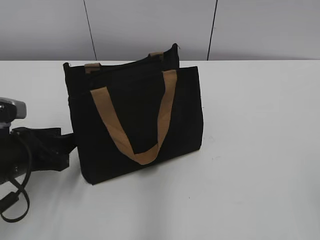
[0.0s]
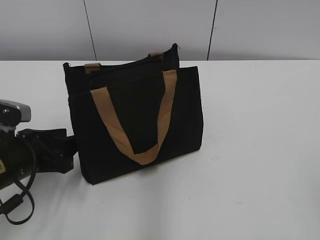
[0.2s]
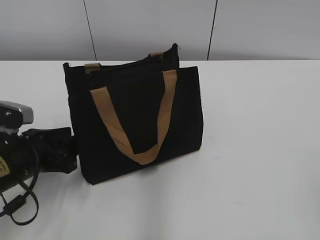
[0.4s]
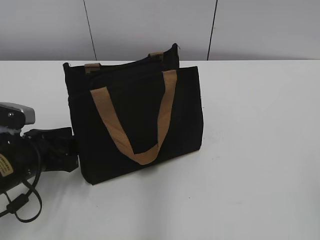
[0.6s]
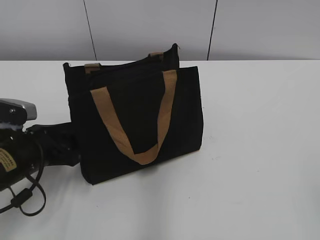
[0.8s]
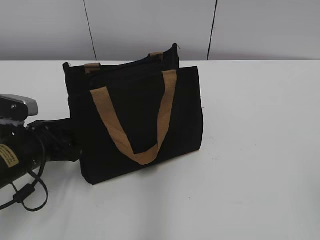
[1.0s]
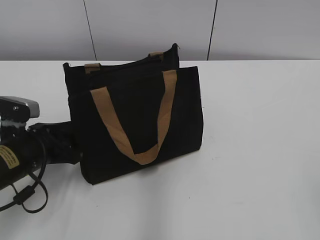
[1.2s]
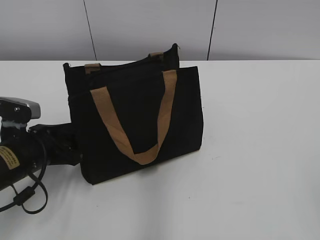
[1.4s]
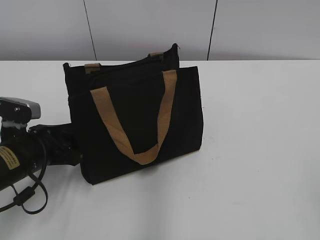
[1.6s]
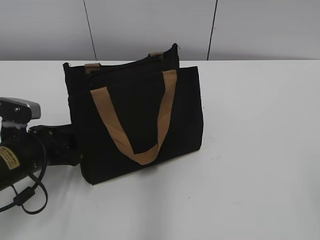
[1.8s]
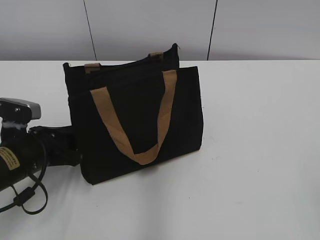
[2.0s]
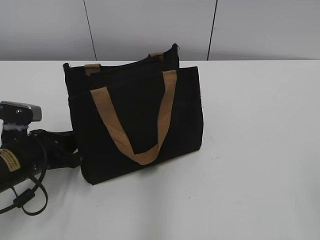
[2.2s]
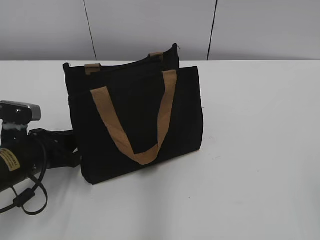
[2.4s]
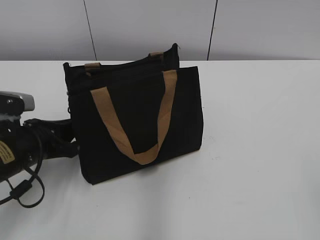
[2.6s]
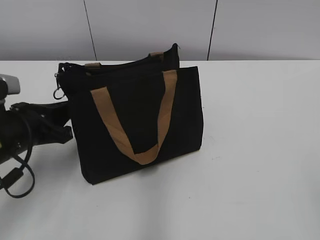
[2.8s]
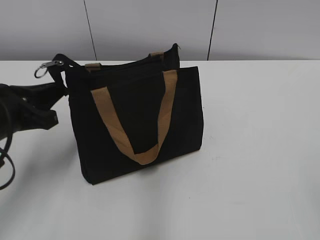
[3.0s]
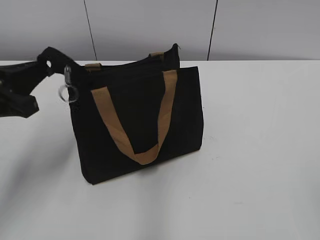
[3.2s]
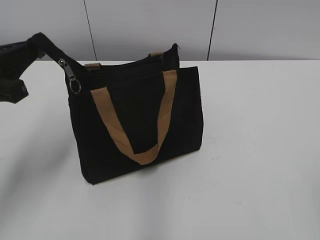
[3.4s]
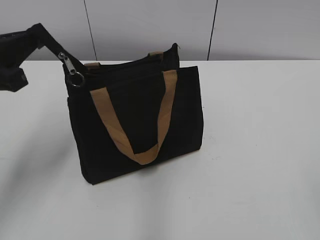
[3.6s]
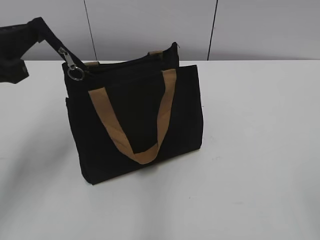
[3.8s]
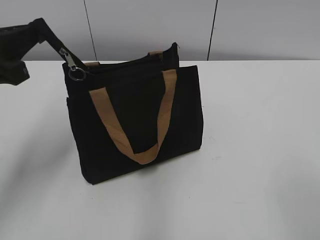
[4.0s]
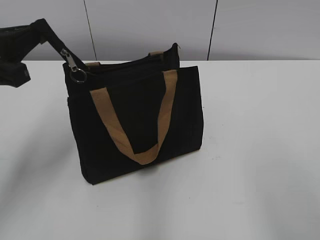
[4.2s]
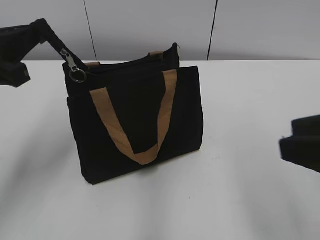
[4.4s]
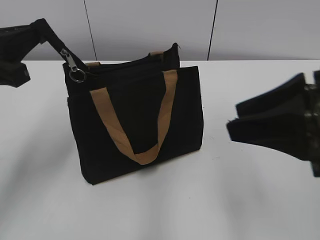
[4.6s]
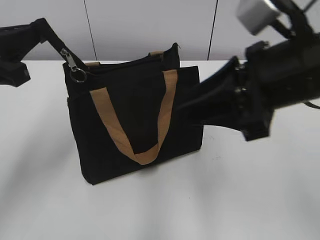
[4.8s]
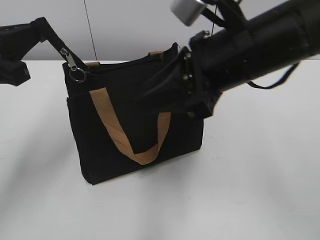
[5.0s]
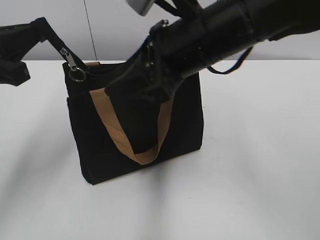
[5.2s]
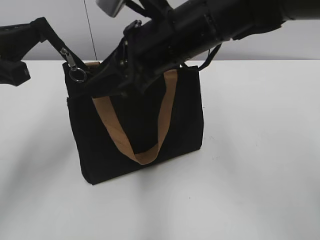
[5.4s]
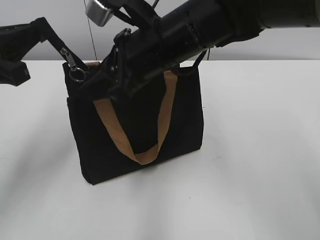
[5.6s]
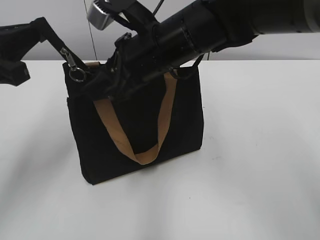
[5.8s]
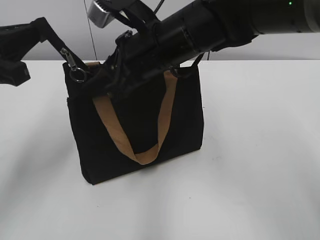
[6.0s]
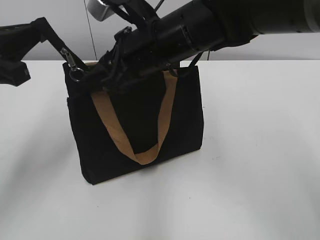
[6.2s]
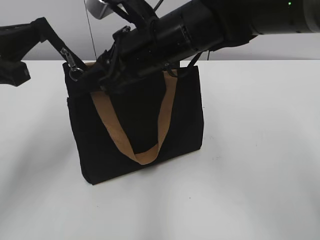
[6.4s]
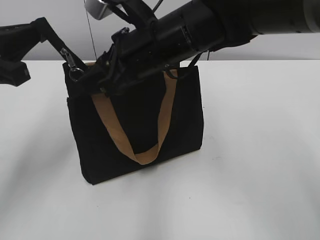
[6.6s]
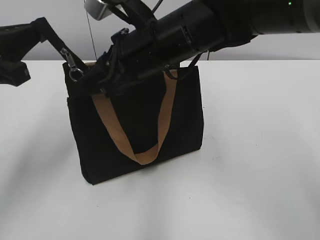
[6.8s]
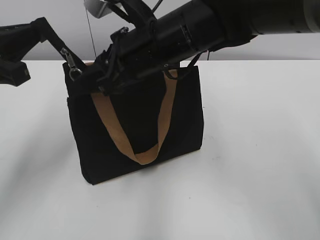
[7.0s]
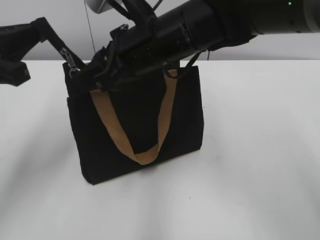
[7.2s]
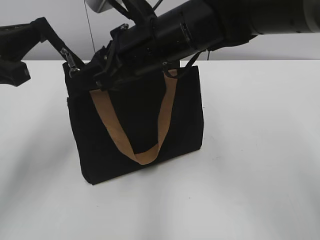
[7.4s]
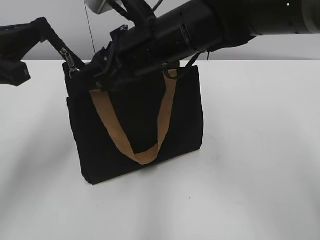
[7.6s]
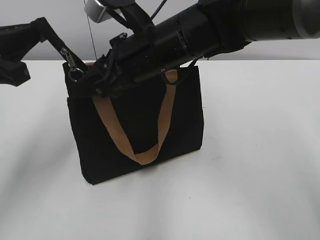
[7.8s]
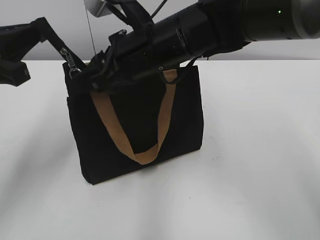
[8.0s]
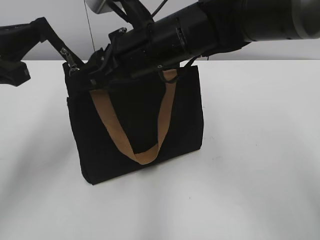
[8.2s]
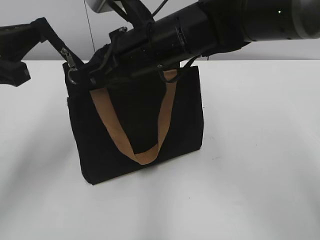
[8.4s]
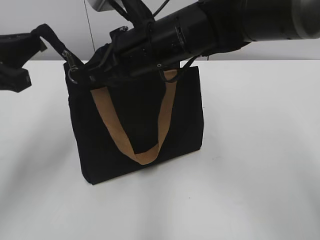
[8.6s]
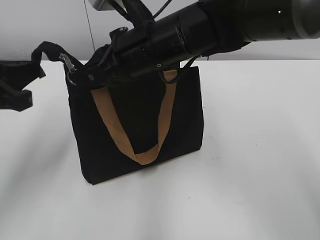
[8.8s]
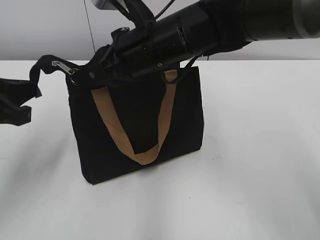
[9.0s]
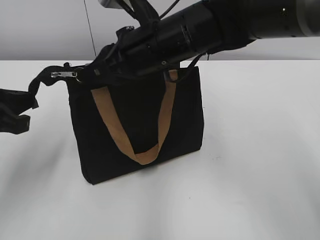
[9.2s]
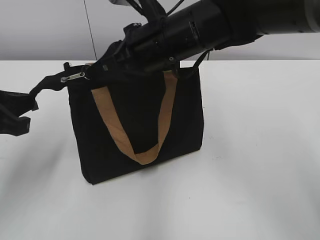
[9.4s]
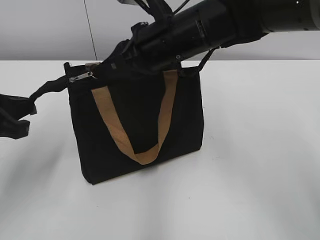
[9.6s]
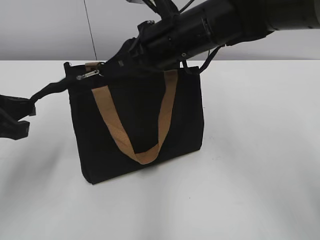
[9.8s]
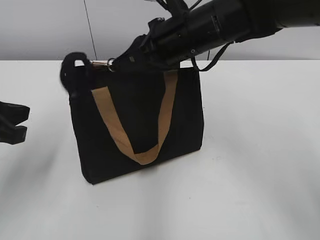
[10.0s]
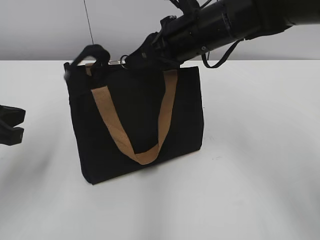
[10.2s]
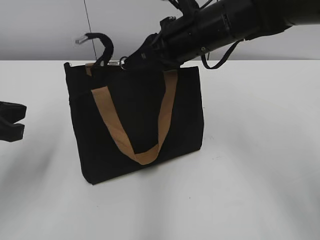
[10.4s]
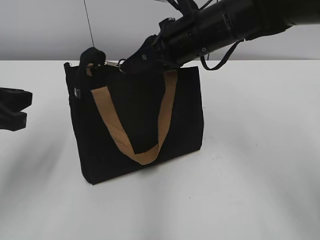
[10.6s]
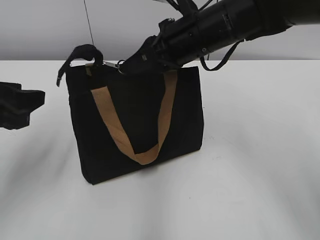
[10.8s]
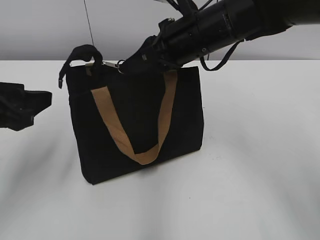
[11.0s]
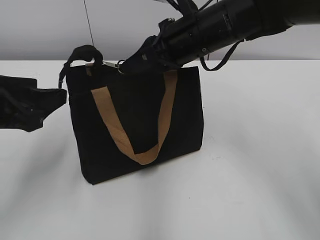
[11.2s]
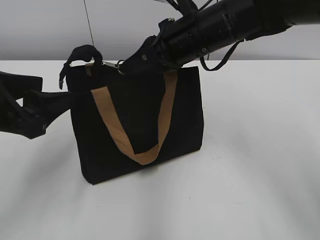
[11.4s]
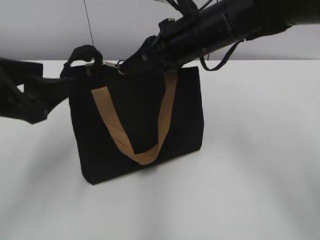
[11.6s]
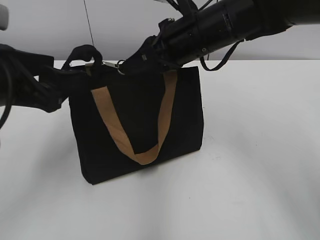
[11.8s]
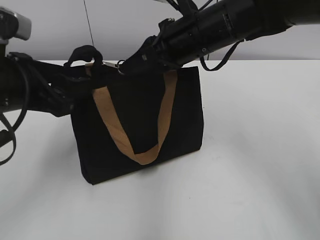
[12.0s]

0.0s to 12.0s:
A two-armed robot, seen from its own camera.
0.0s to 1.6s: The grippers move only a little.
1.6s to 3.0s: The left gripper goes roughly 10 cm upward, and closes.
3.0s to 4.4s: The left gripper is displaced upward by approximately 10 cm. The right gripper shifts roughly 15 cm forward and to the left.
4.4s to 6.0s: The right gripper goes roughly 30 cm forward and to the left.
6.0s to 7.6s: There are only small adjustments of the grippers.
7.6s to 9.0s: The right gripper closes up.
9.0s to 10.4s: The right gripper shifts approximately 5 cm to the right.
10.4s to 12.0s: The left gripper travels to the right by roughly 5 cm, and opens its fingers.

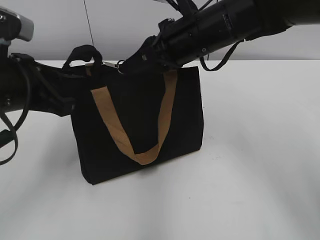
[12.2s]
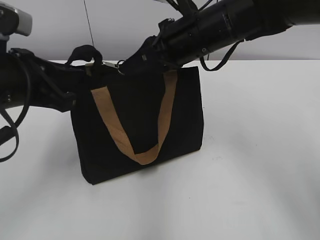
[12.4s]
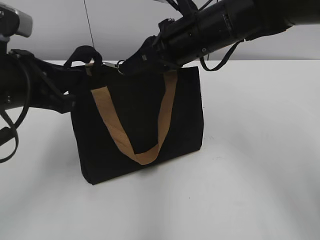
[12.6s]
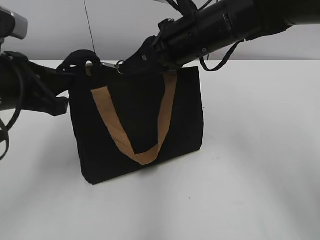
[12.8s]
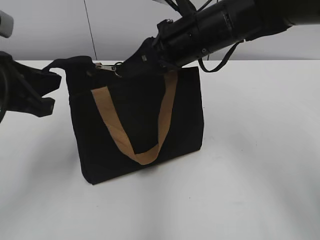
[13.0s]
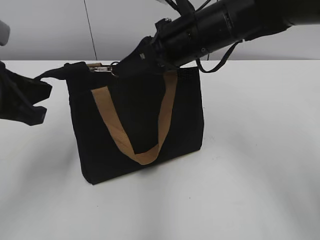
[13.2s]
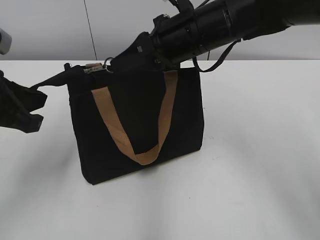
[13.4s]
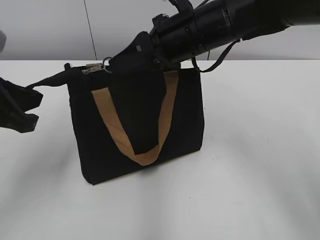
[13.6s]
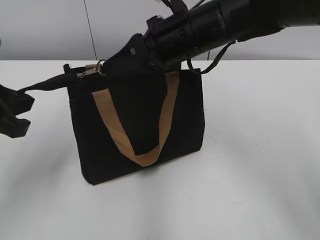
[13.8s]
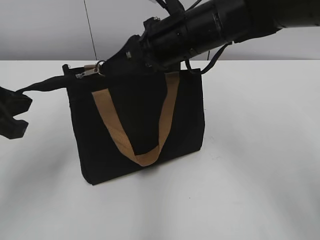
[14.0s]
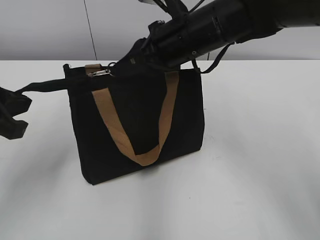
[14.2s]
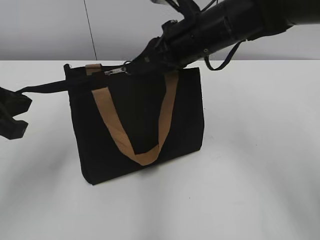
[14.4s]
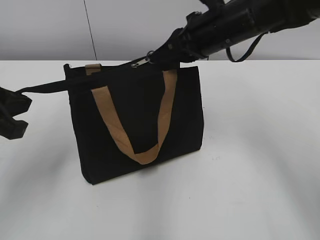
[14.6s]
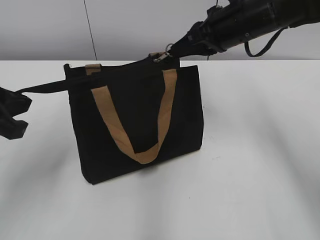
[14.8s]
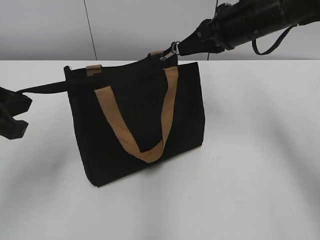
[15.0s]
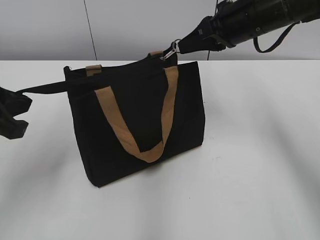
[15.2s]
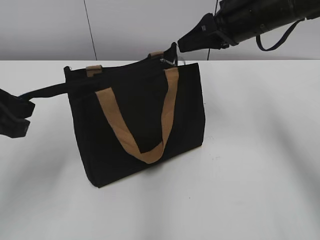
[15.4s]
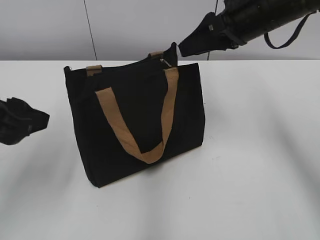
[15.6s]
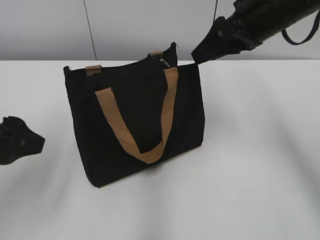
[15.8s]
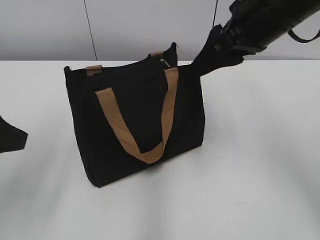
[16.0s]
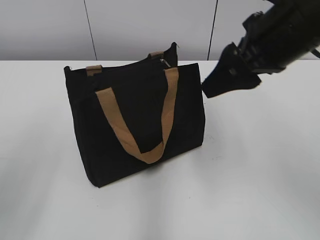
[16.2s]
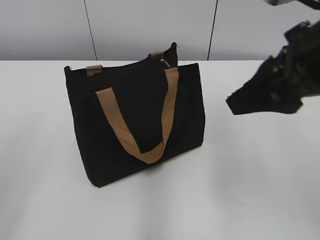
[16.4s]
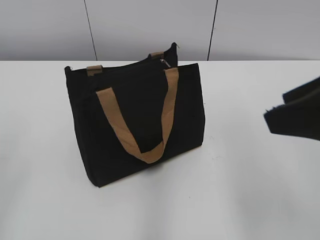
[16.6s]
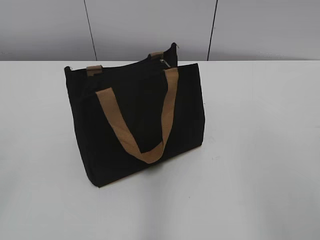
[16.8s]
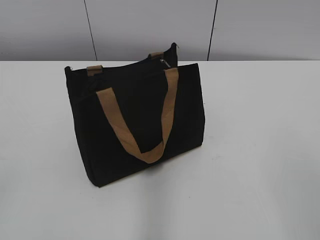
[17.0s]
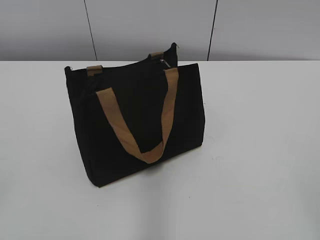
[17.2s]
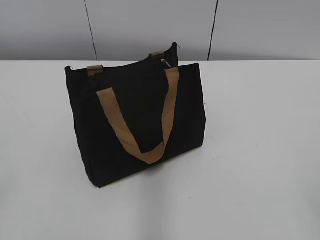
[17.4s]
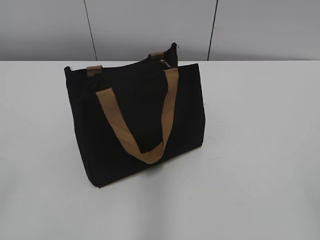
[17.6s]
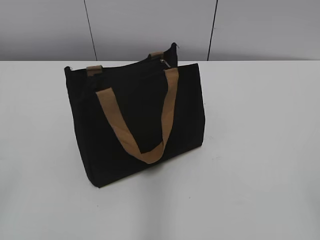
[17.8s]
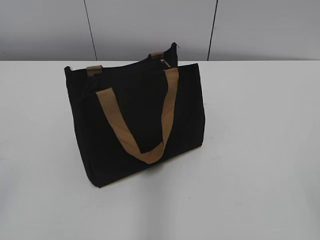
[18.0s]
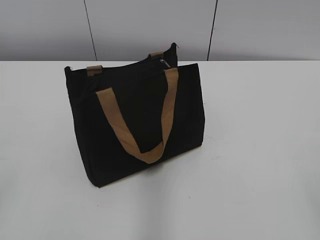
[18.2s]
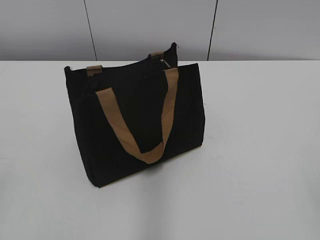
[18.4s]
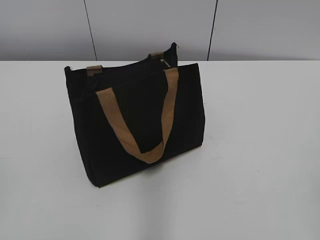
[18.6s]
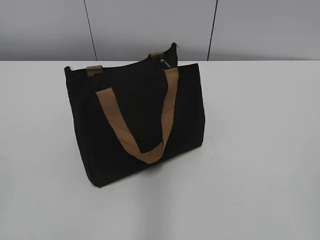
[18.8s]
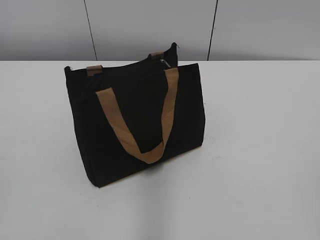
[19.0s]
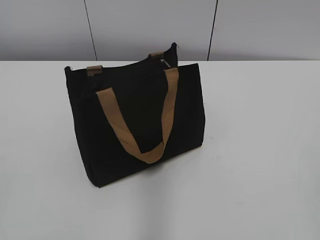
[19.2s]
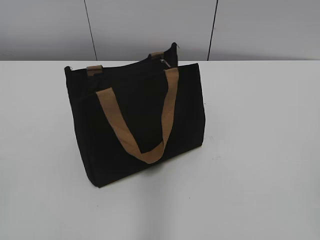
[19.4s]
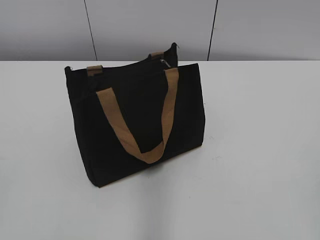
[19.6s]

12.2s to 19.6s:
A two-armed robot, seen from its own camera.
Step, 12.2s to 15.2s: Zip up the bag with your right hand.
12.2s to 13.6s: The left gripper closes its fingers.
13.6s to 15.2s: The right gripper goes roughly 10 cm to the right.
15.2s to 16.6s: The right gripper moves backward, some 25 cm, and opens its fingers. The left gripper travels backward, to the left and upward by roughly 15 cm, and opens its fingers.
16.6s to 18.2s: The right gripper moves backward and to the right, approximately 20 cm; the left gripper heads backward, covering roughly 5 cm.

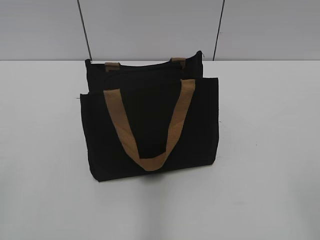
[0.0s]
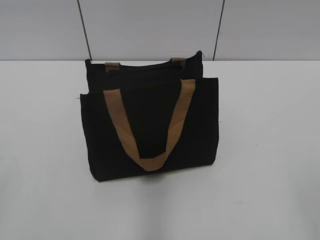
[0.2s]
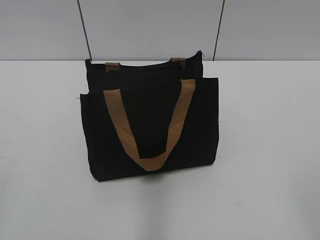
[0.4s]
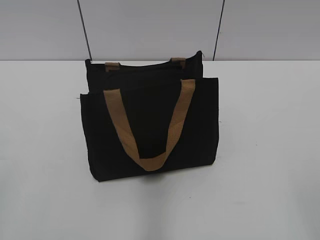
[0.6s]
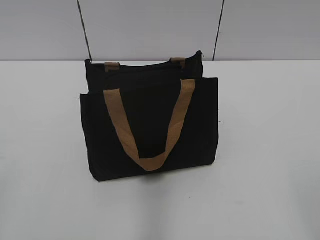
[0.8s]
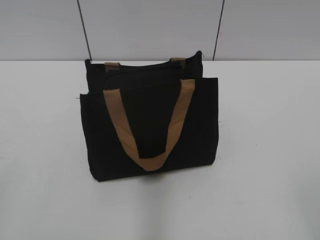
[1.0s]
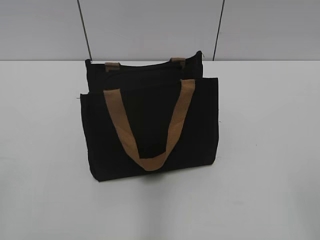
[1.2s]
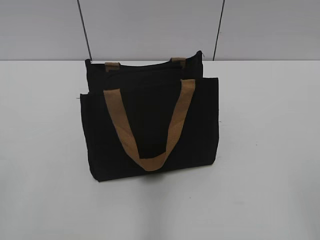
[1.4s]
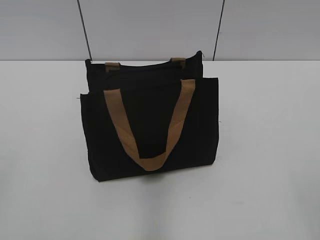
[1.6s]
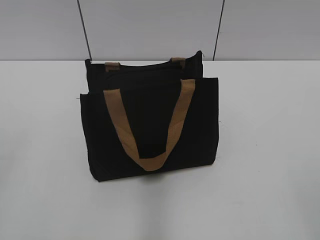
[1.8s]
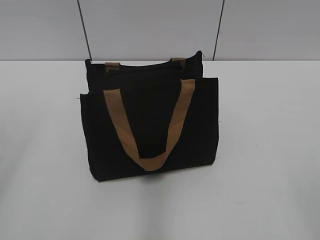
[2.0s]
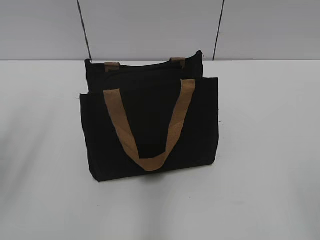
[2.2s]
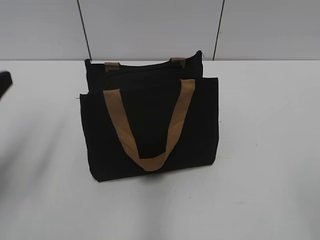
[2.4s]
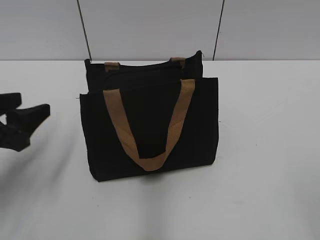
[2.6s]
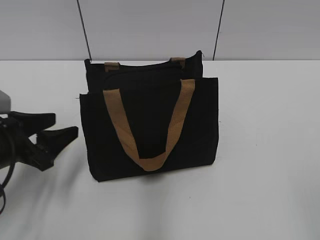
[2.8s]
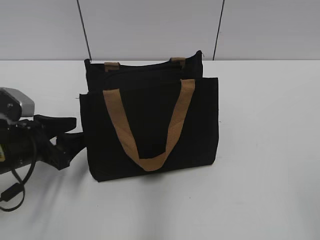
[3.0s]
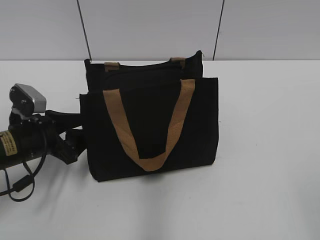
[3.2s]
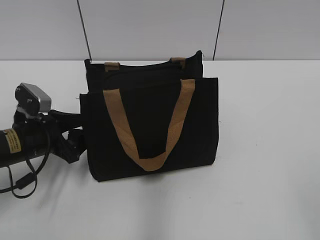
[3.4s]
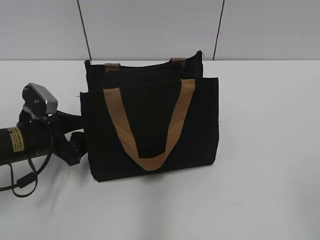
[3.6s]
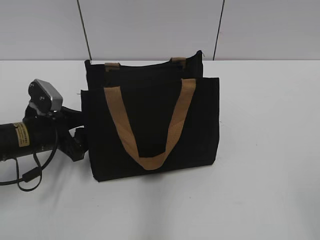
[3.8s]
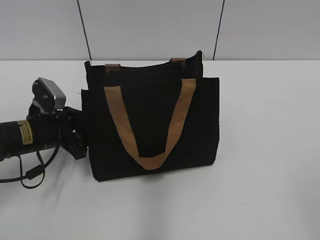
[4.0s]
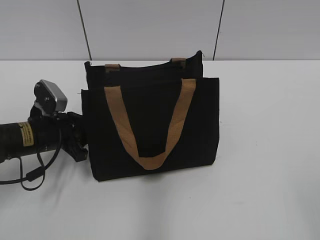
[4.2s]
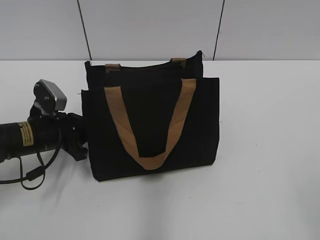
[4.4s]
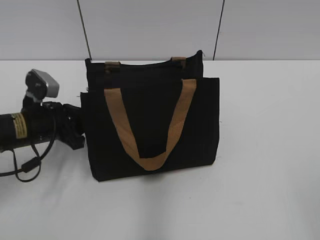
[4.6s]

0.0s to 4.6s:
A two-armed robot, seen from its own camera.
1.6s to 3.0s: The left gripper shifts some 30 cm forward and downward.
3.0s to 4.6s: The left gripper goes about 5 cm forward, and closes its fingers.
